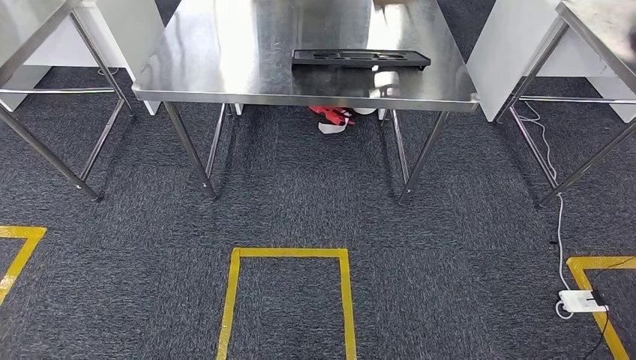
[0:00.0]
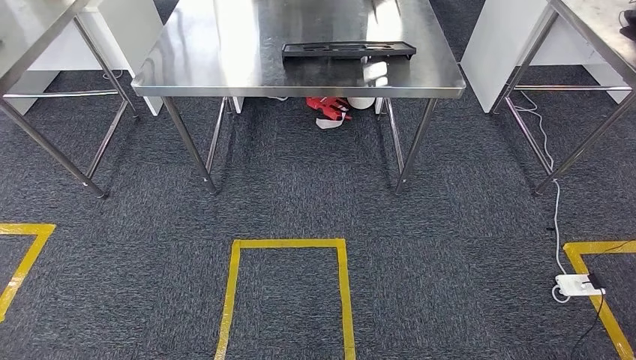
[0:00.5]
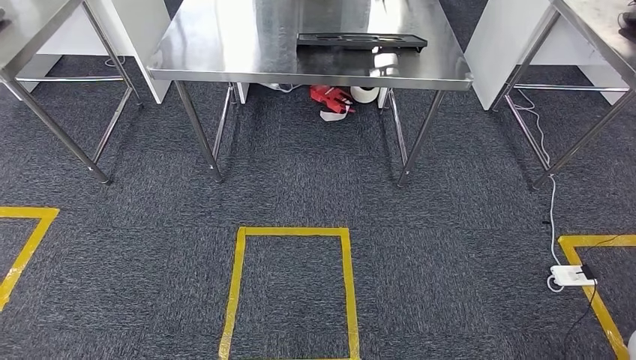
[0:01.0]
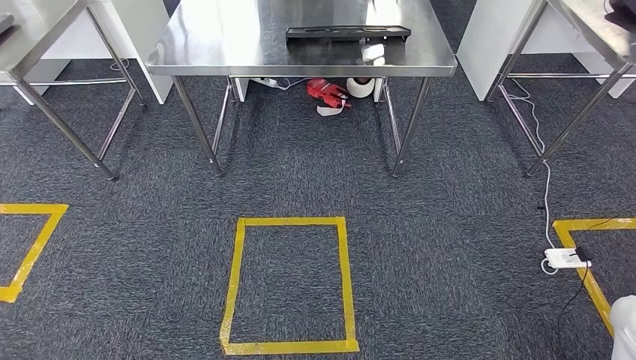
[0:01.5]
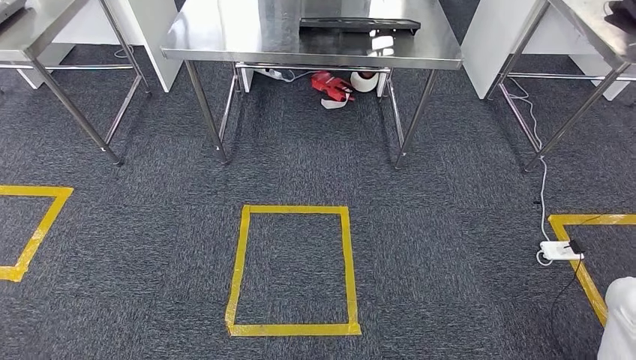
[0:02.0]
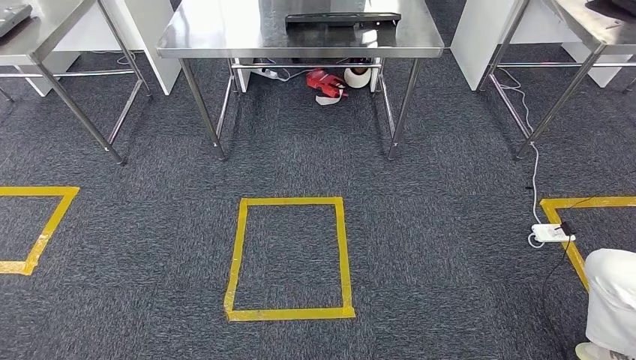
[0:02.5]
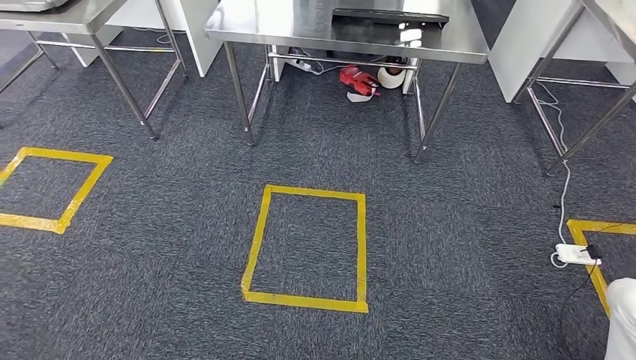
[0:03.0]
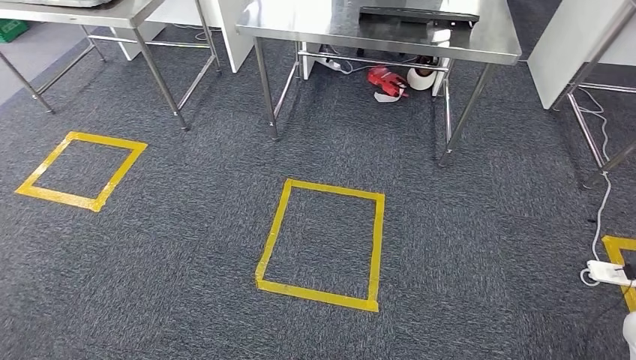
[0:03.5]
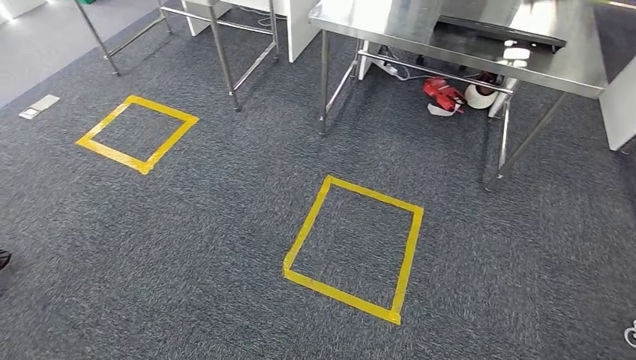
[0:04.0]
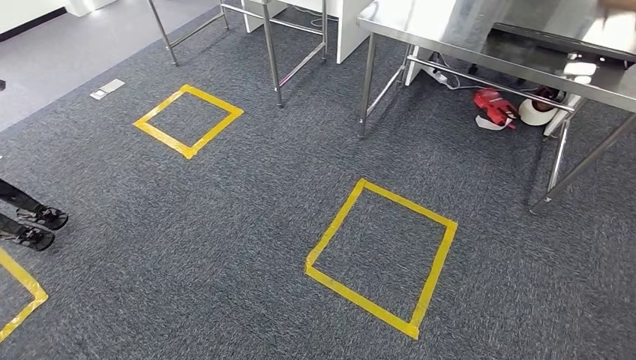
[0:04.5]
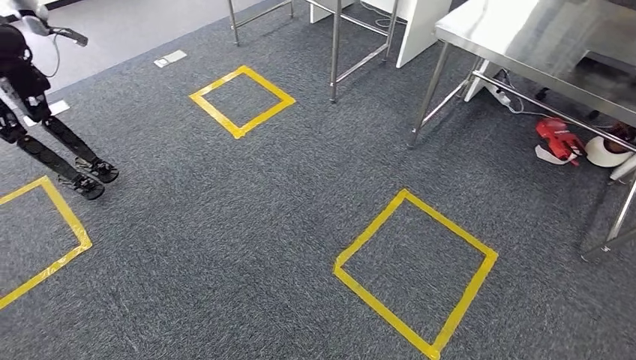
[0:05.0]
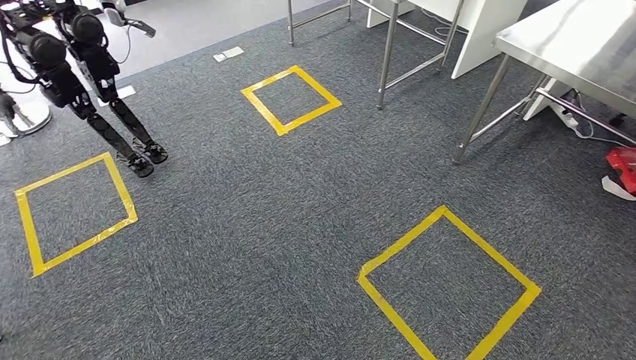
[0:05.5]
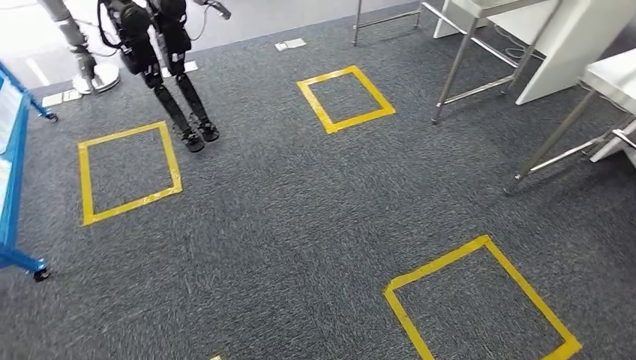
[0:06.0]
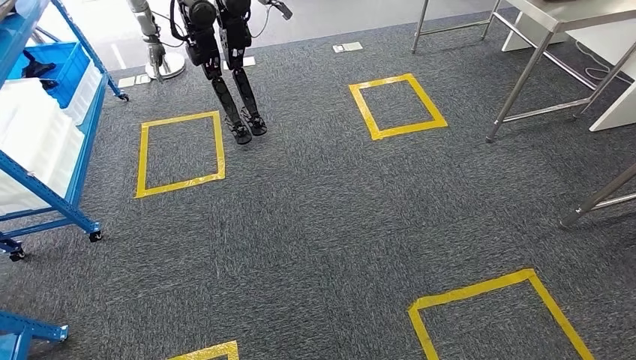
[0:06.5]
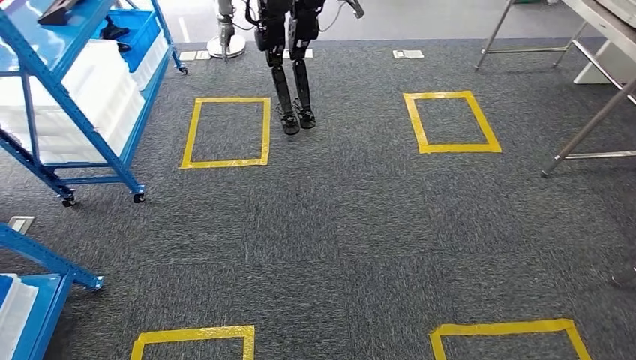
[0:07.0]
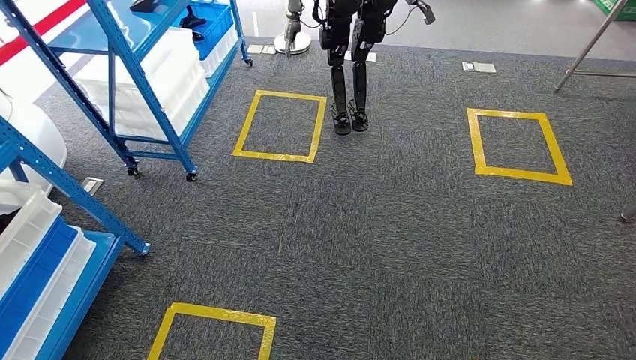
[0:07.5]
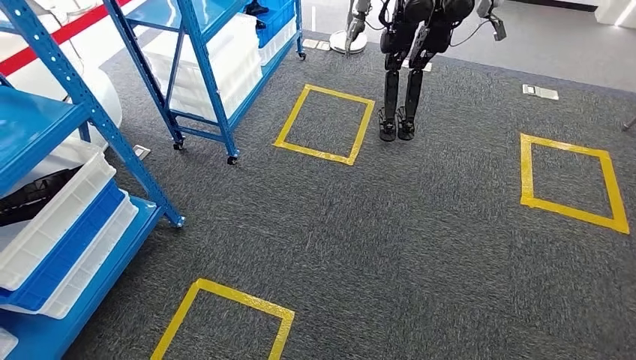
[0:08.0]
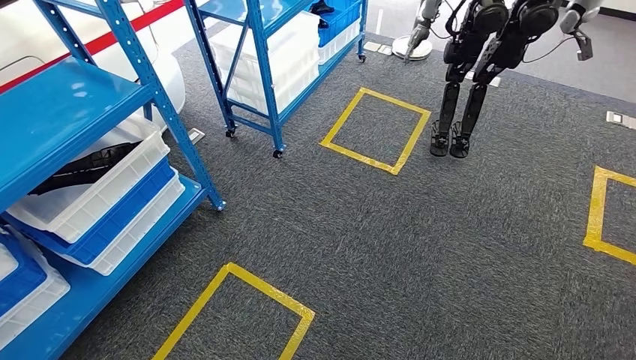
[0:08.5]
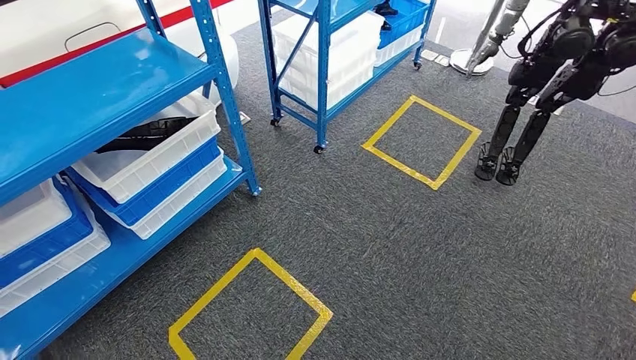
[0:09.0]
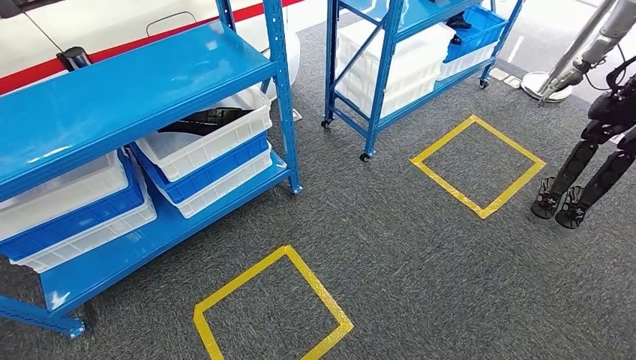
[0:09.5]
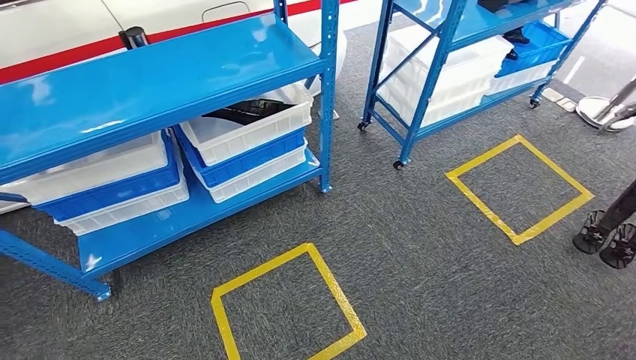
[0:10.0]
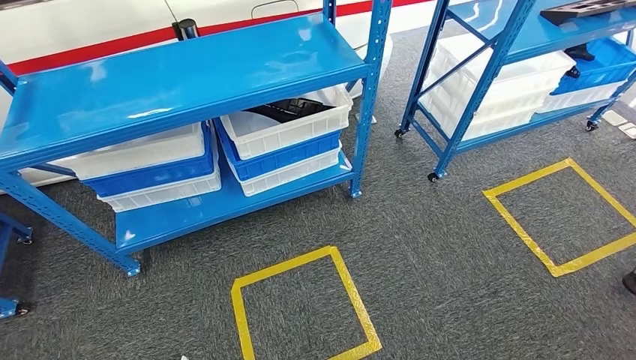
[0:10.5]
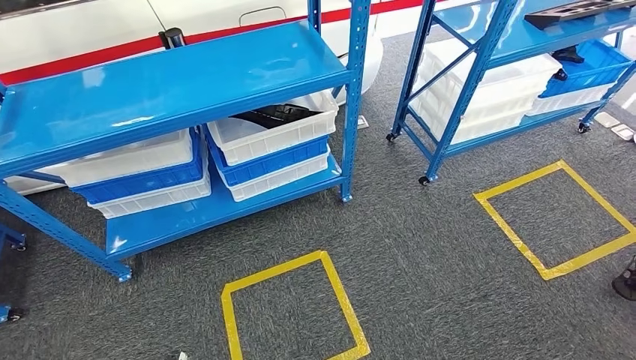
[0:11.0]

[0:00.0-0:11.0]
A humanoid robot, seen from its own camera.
Step, 0:00.0 to 0:11.0: Move to the initial position of the shelf.
